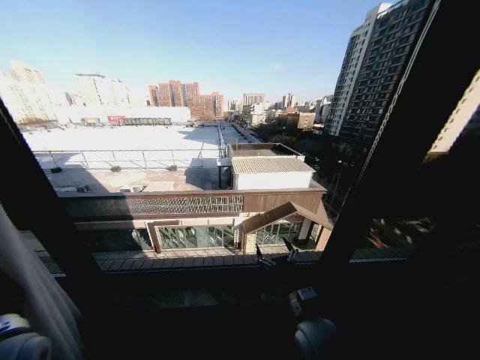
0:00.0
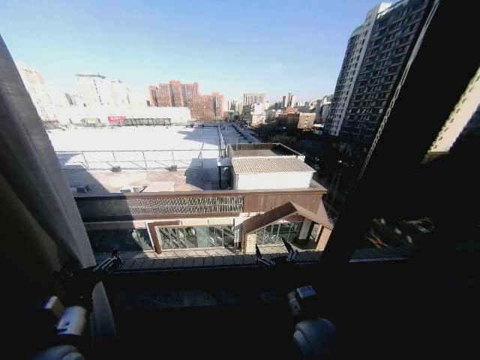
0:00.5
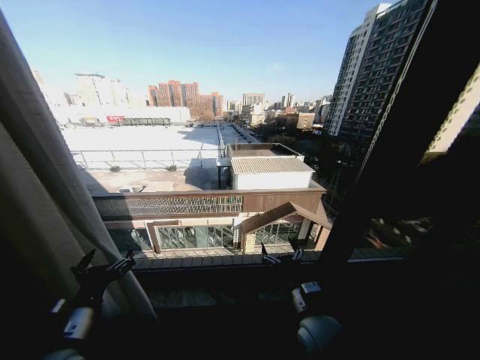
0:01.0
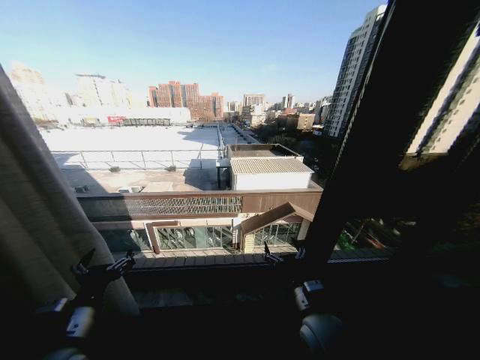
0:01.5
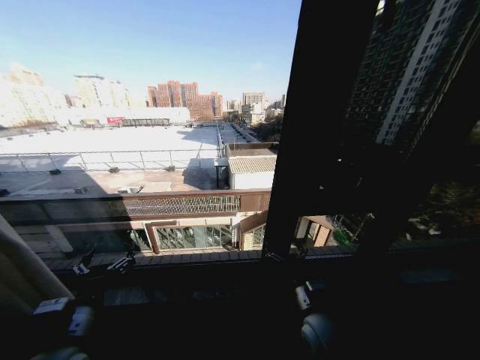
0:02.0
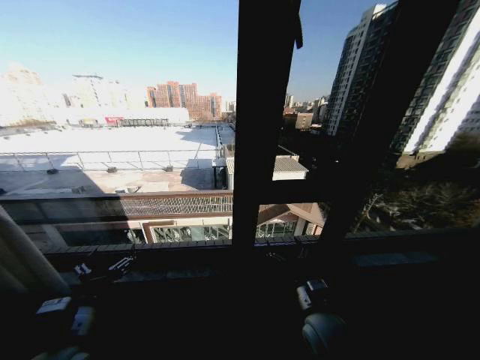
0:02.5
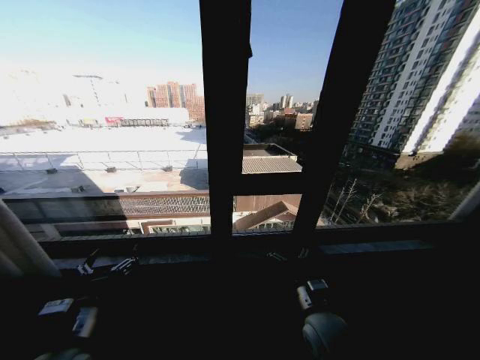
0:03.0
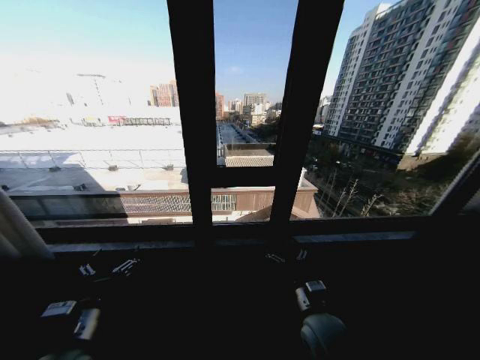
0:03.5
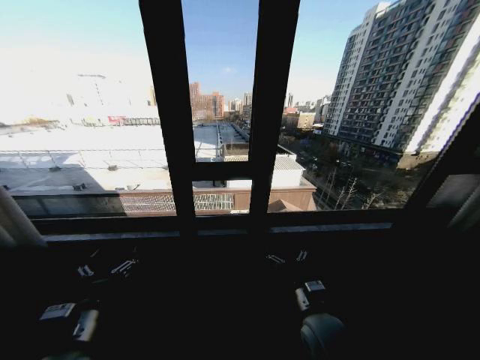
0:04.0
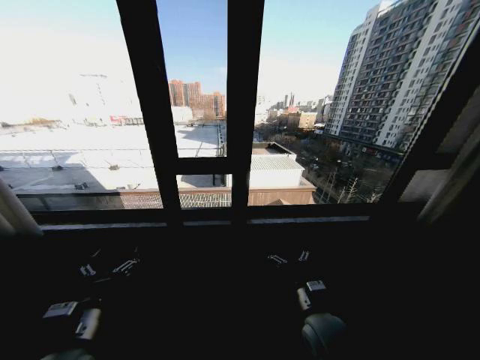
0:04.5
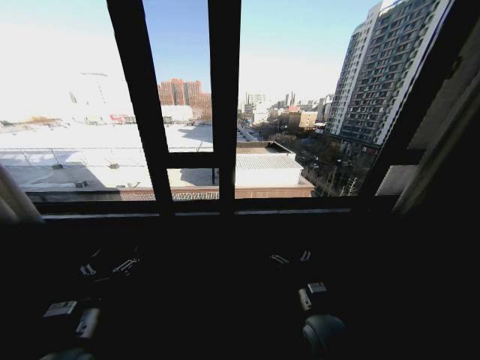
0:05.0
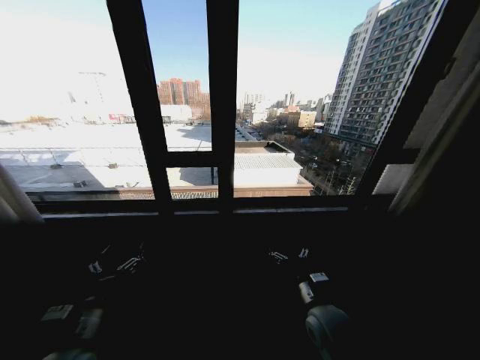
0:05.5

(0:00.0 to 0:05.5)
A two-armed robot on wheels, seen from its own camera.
Task of the whole recording: Open the curtains by pulling them apart, changing their state from closed to fully open.
0:00.0 - 0:02.0: The left gripper travels to the right by about 10 cm, and opens its fingers.
